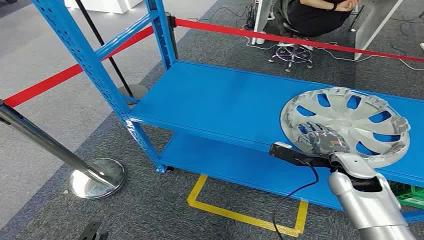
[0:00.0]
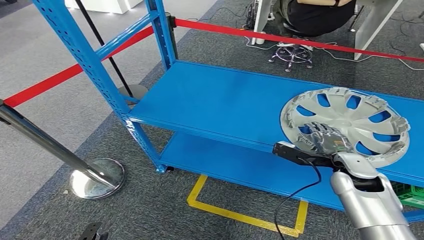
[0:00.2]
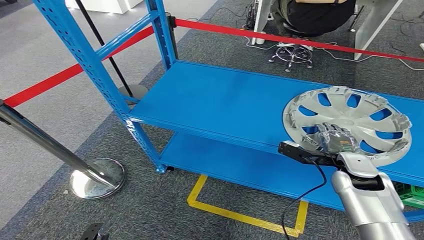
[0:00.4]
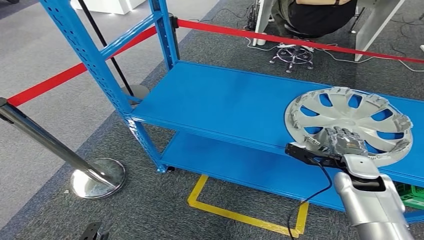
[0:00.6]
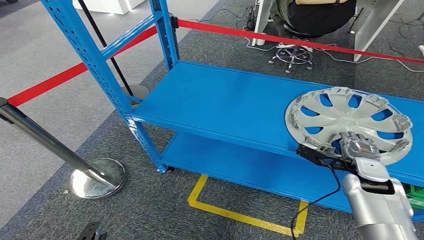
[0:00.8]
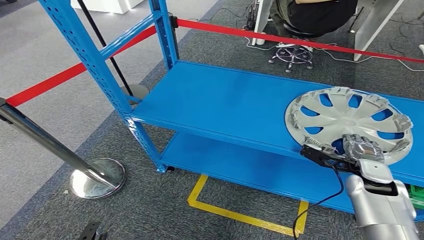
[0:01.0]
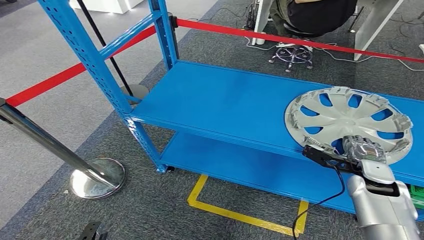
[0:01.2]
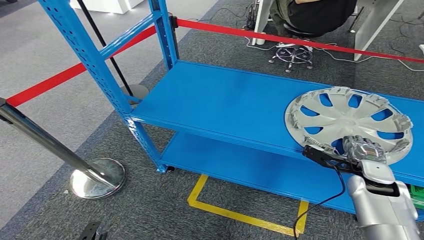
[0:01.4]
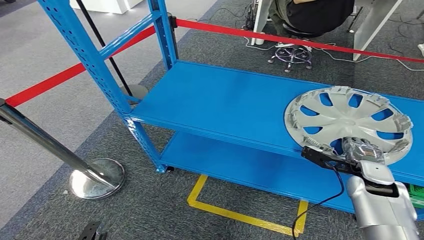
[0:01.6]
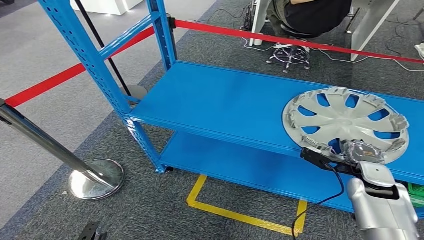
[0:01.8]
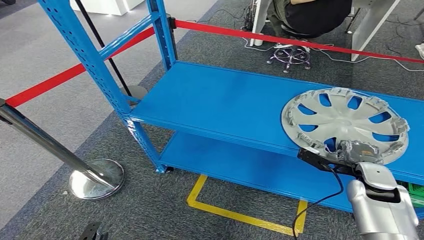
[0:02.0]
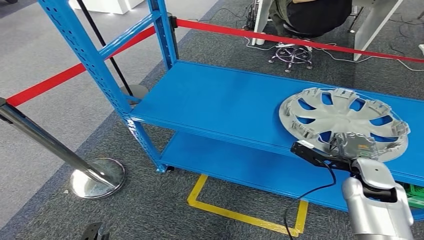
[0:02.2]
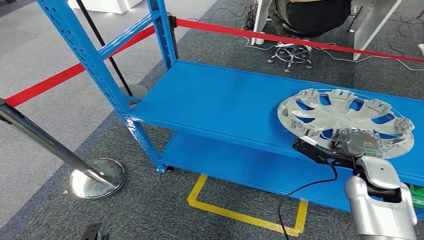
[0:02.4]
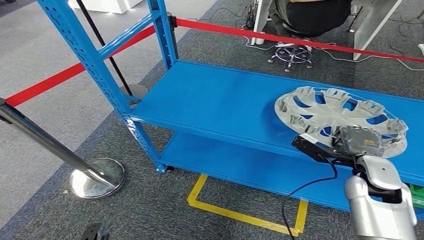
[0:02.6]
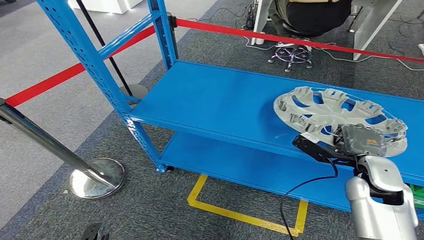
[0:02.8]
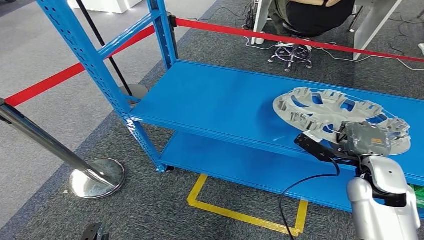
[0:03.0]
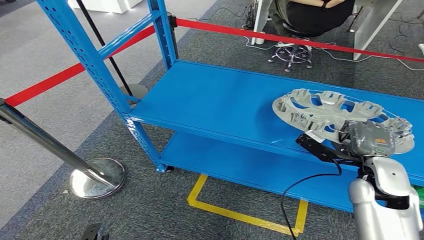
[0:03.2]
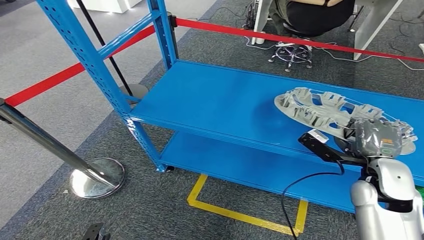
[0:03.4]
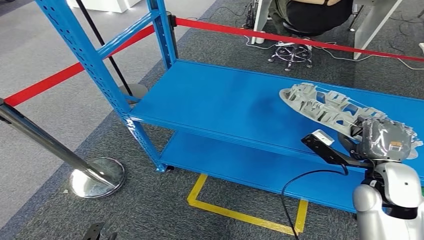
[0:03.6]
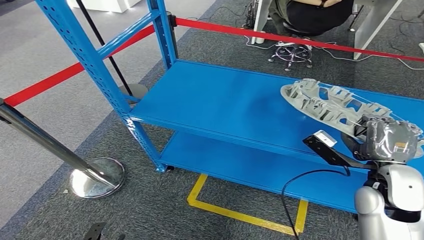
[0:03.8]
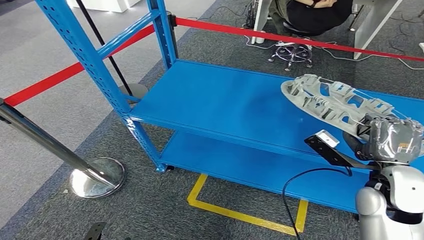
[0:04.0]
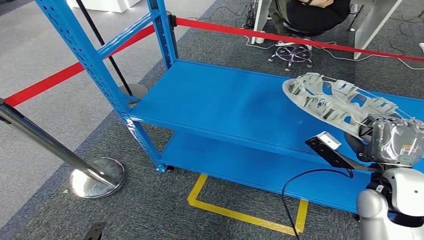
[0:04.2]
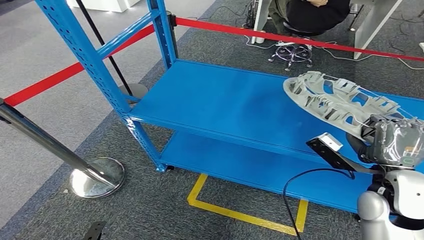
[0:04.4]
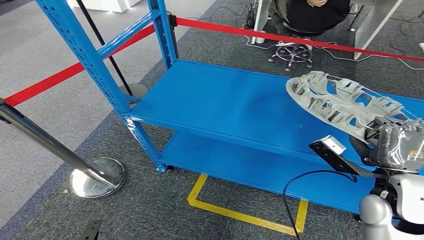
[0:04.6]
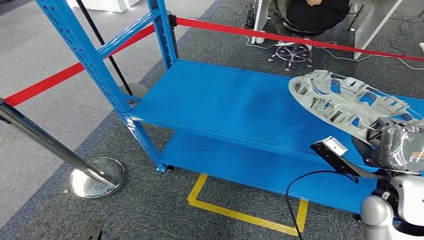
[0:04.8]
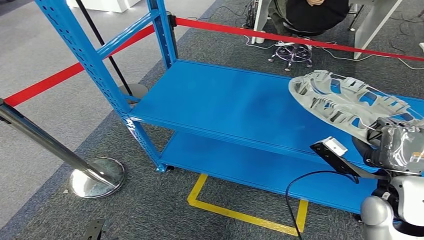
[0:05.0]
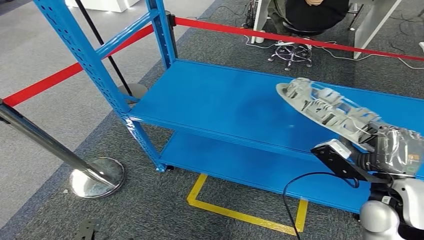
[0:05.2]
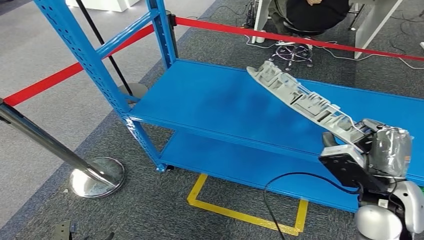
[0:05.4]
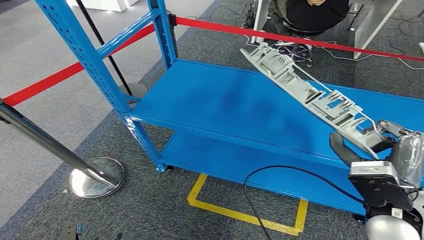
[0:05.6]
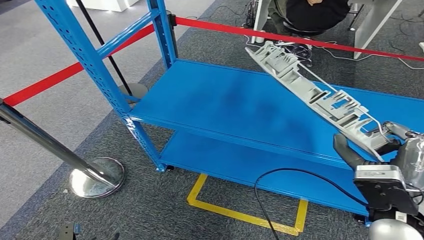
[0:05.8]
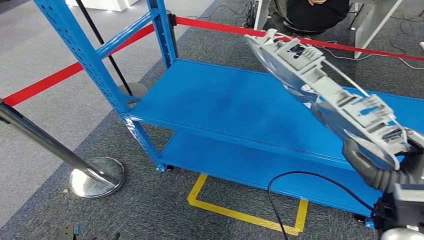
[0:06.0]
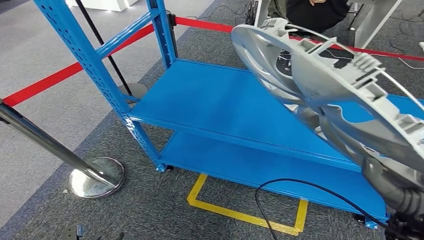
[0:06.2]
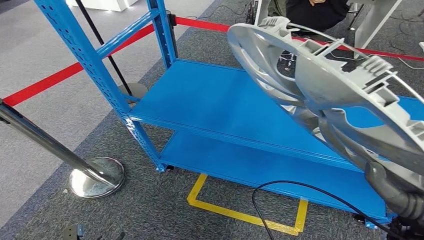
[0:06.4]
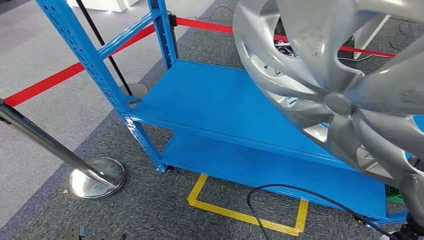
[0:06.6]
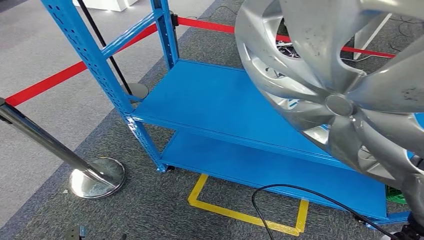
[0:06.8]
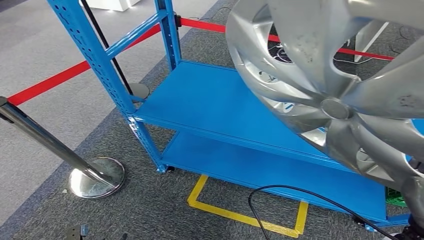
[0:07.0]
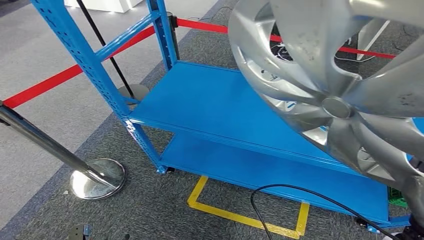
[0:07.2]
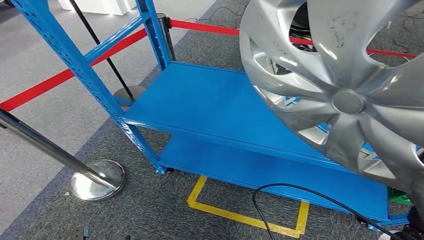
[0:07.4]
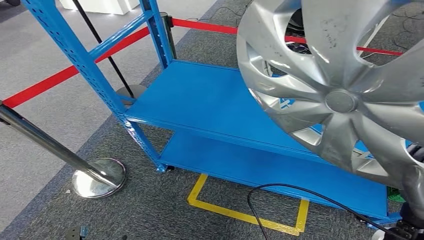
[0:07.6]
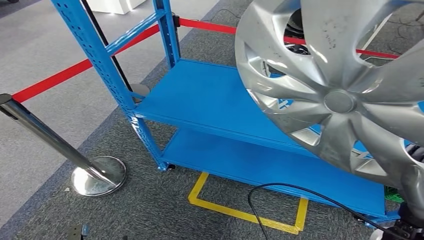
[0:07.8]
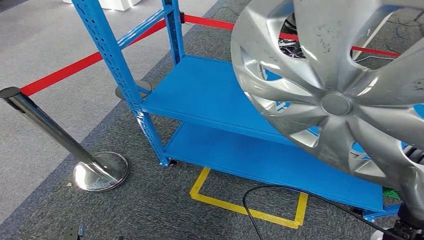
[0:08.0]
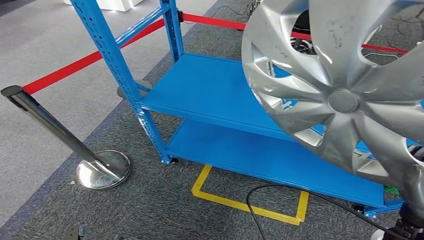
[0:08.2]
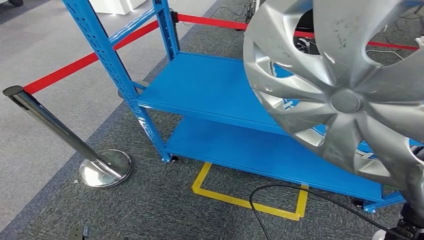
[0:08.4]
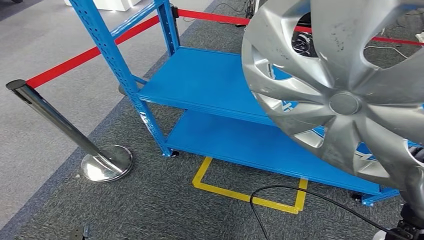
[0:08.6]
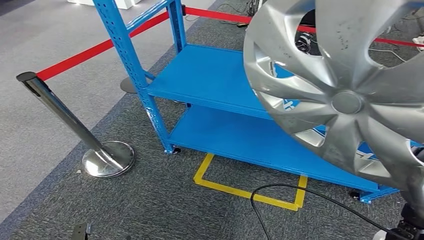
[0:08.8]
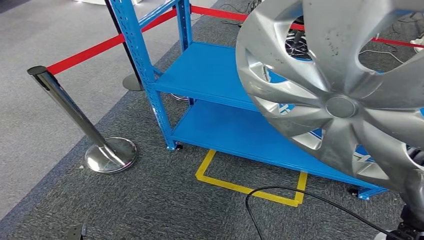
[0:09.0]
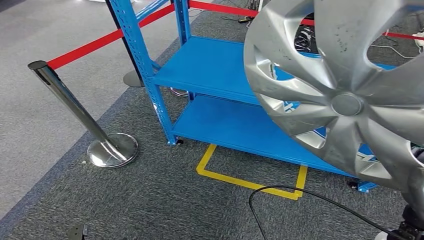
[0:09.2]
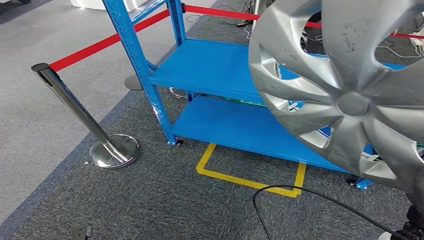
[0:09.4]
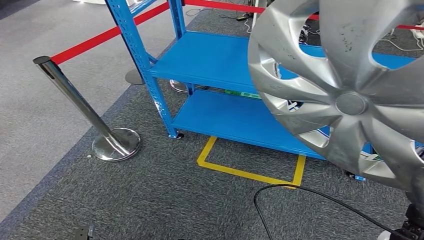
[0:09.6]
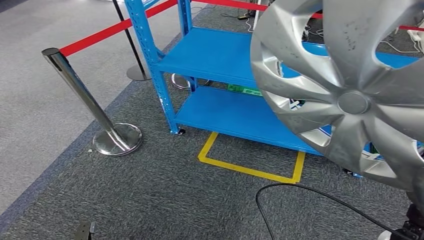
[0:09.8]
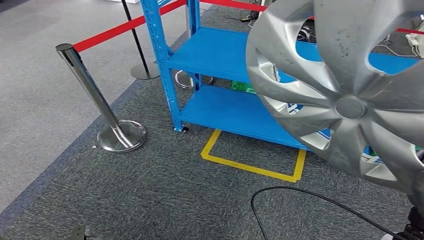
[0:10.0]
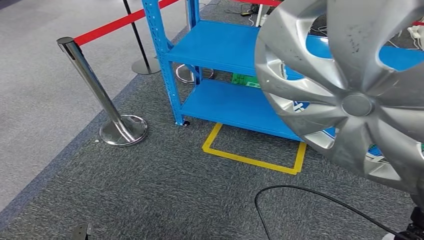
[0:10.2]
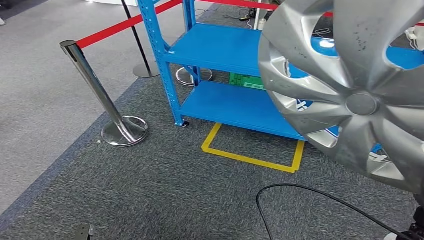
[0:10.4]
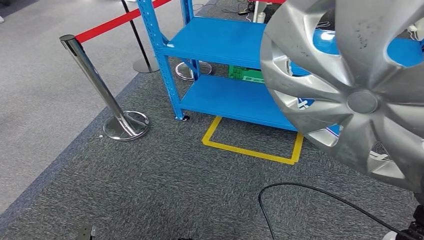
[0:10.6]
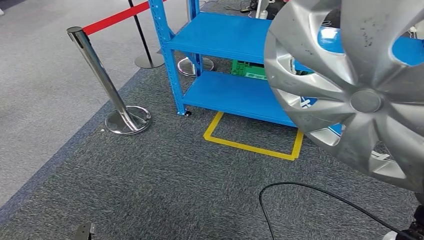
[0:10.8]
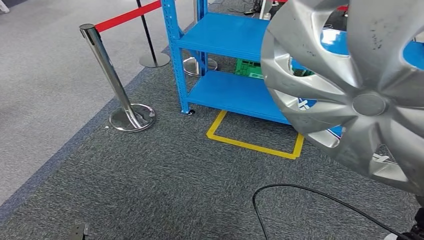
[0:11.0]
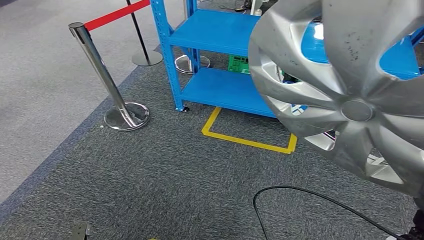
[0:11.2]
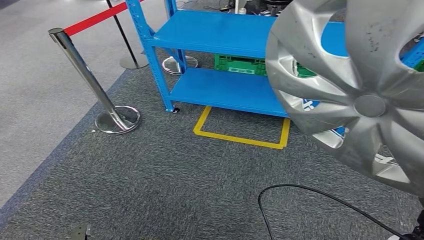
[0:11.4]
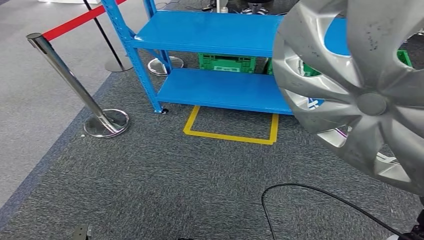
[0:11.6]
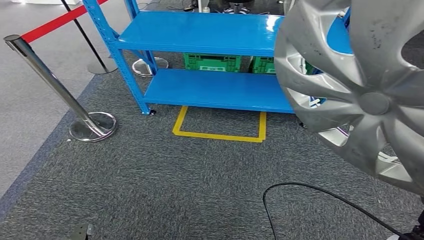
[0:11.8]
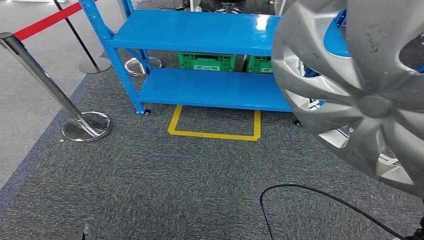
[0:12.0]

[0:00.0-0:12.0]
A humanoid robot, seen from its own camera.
Step, 0:00.0 to 0:06.6: Pick up the small component from the shelf.
0:01.6 to 0:03.0: The right hand goes approximately 5 cm upward.
0:03.0 to 0:04.4: The right hand moves some 5 cm.
0:04.4 to 0:06.0: The right hand moves backward, roughly 5 cm.

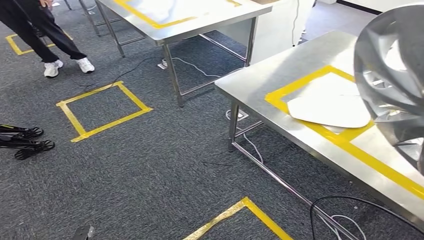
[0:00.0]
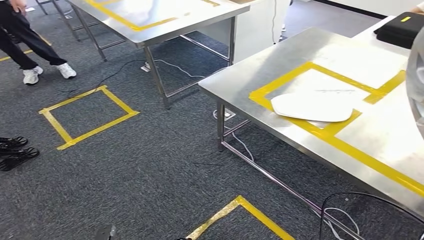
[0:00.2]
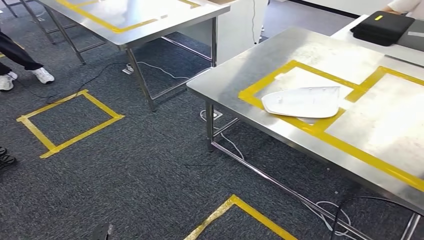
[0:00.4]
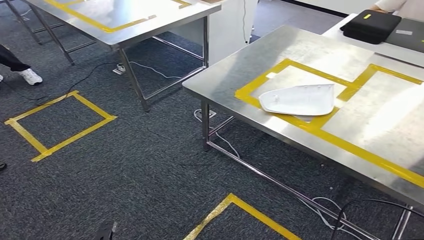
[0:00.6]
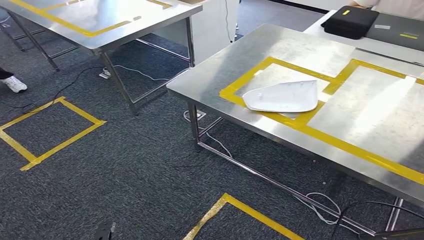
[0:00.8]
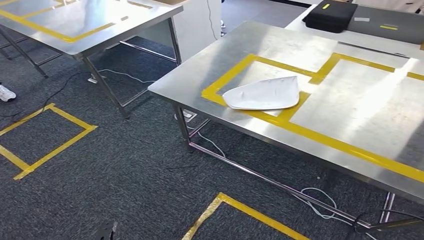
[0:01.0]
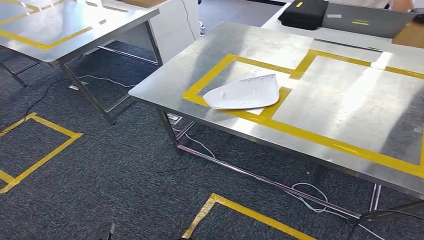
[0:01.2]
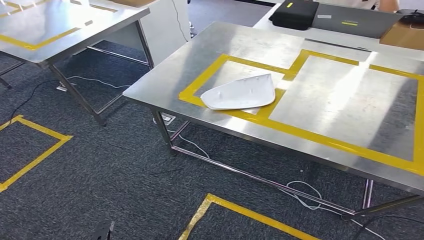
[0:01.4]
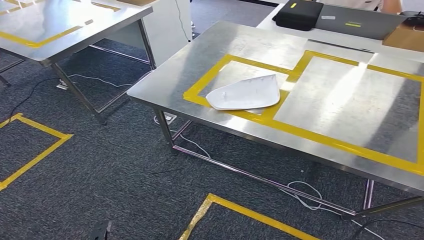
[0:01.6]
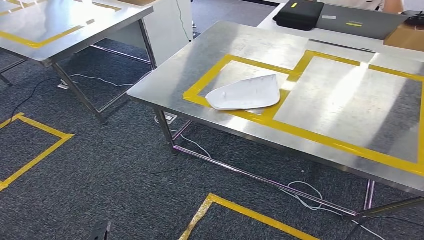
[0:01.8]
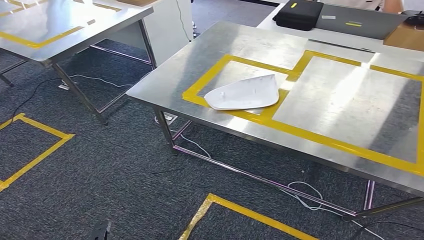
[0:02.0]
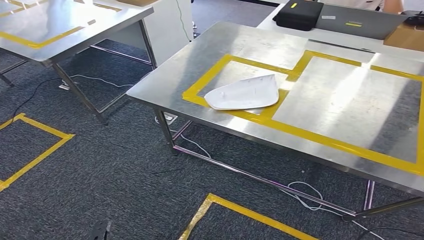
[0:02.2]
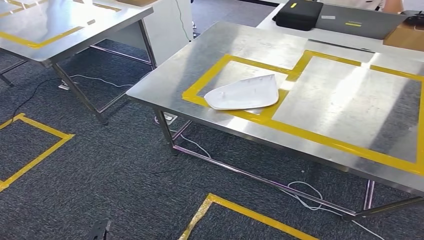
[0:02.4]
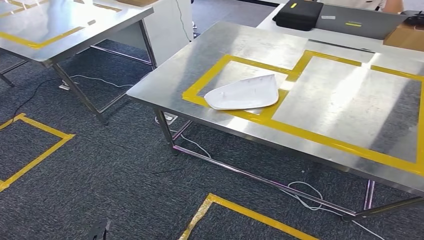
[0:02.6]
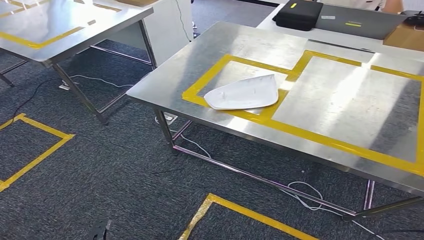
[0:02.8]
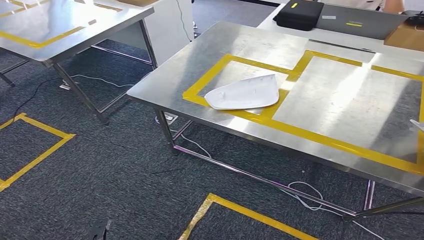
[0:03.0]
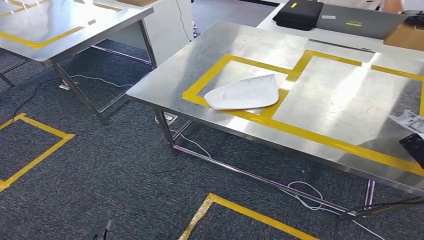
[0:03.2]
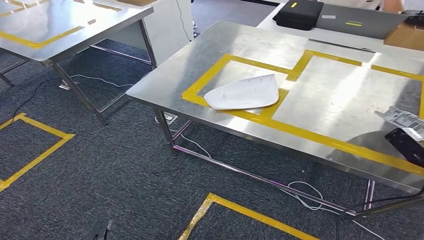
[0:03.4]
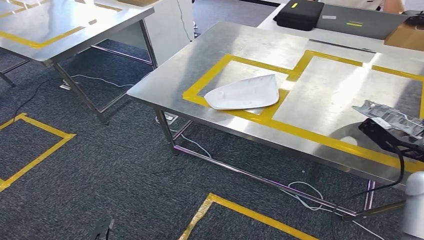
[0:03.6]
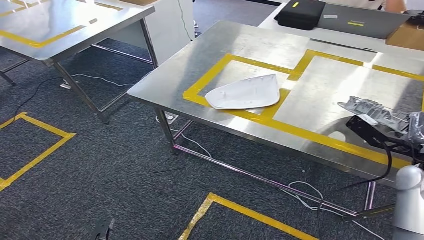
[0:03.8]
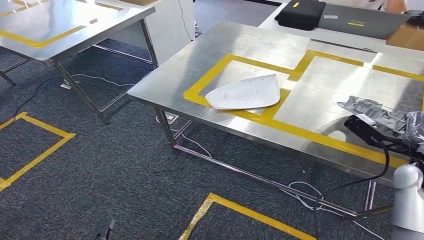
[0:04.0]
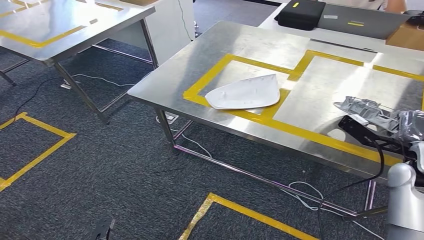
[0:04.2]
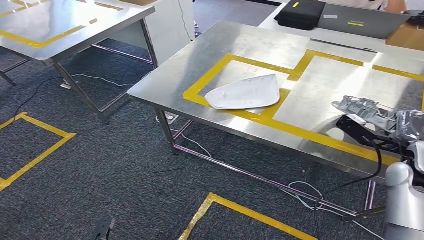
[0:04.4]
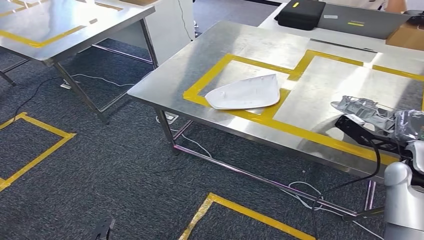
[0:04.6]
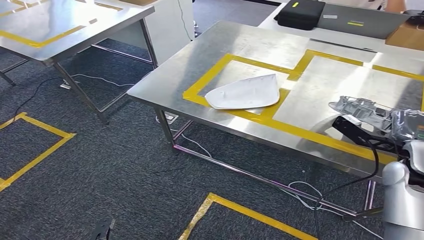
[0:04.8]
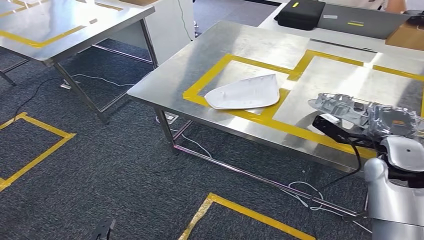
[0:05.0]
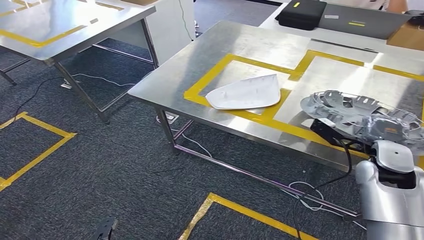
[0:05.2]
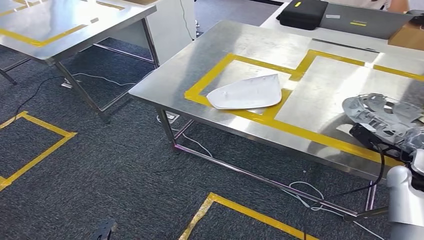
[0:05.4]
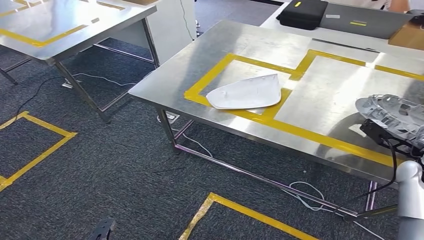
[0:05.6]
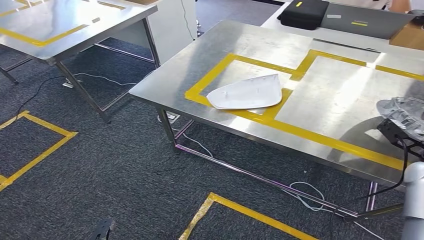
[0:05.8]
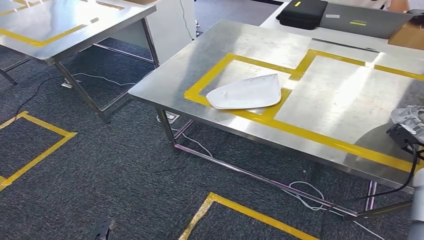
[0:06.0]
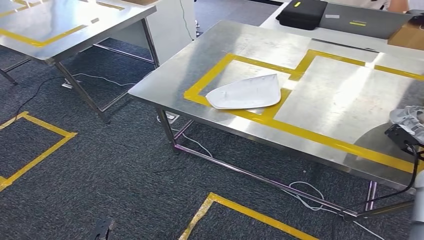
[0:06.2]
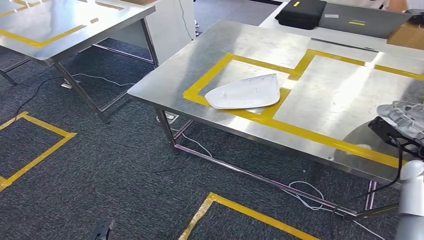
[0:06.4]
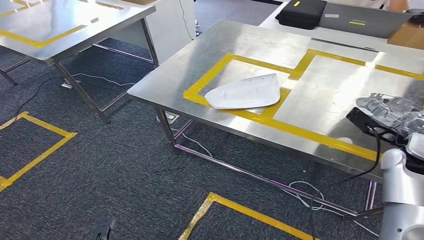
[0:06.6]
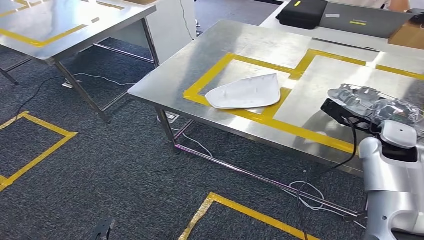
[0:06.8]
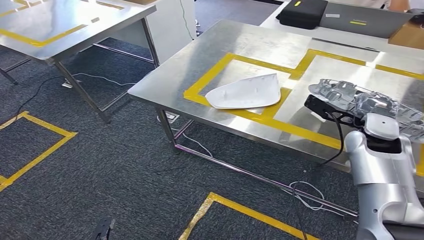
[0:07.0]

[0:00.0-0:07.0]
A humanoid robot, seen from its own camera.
0:01.4 to 0:02.8: The right hand moves forward, roughly 10 cm.
0:02.8 to 0:04.2: The right hand heads forward and to the left, covering about 20 cm.
0:04.2 to 0:05.6: The right hand changes place by approximately 5 cm.
0:05.6 to 0:07.0: The right hand shifts some 10 cm to the left and forward.